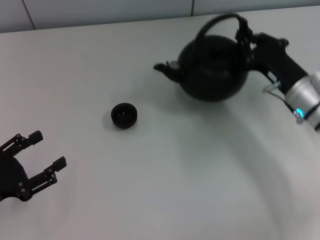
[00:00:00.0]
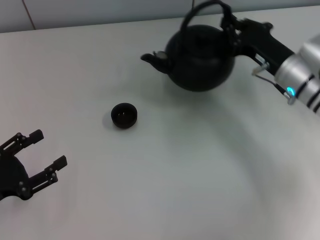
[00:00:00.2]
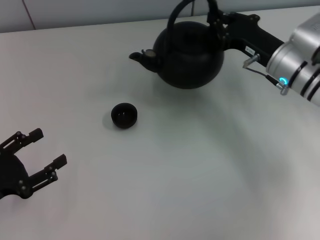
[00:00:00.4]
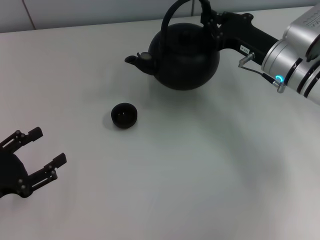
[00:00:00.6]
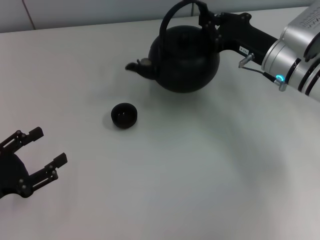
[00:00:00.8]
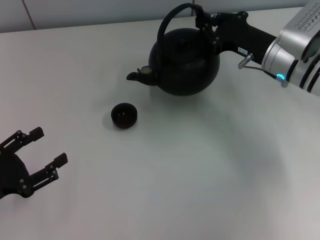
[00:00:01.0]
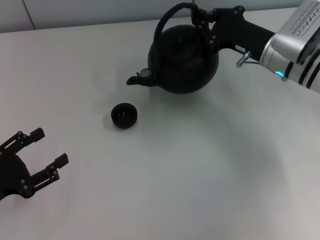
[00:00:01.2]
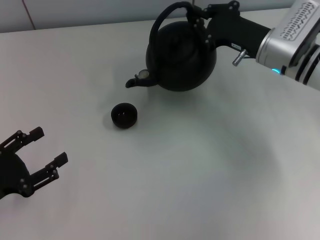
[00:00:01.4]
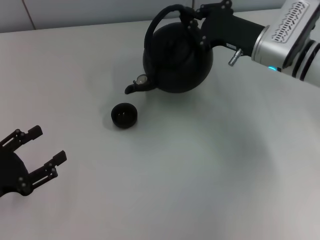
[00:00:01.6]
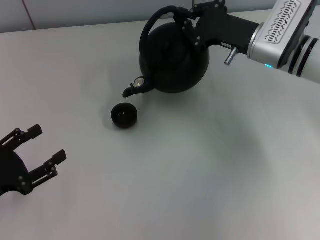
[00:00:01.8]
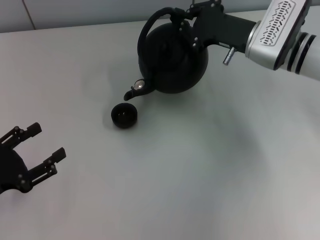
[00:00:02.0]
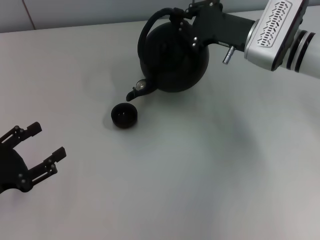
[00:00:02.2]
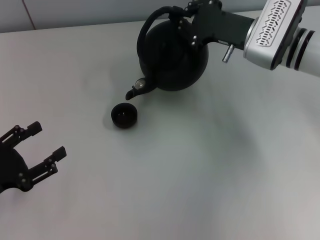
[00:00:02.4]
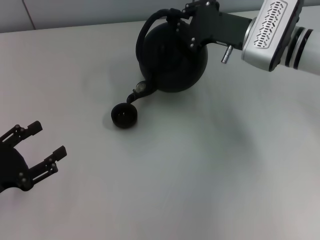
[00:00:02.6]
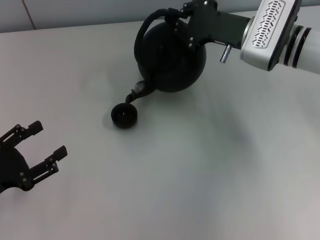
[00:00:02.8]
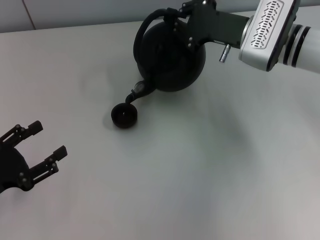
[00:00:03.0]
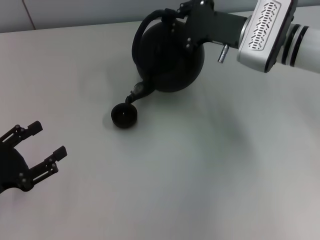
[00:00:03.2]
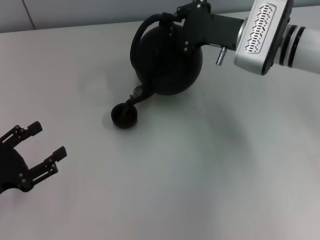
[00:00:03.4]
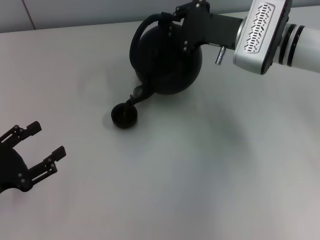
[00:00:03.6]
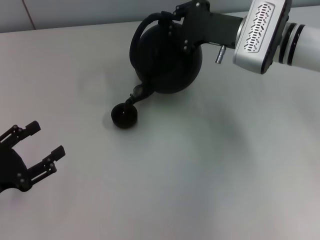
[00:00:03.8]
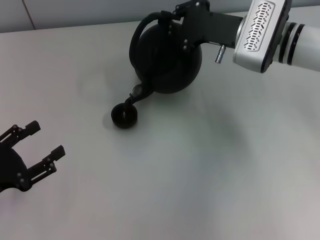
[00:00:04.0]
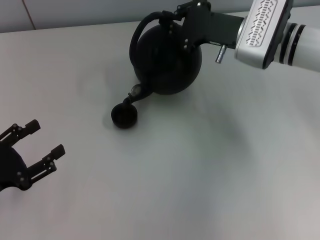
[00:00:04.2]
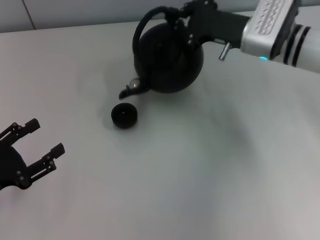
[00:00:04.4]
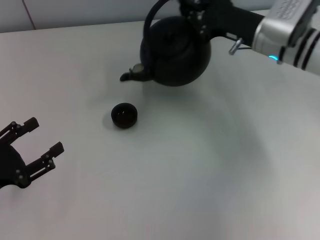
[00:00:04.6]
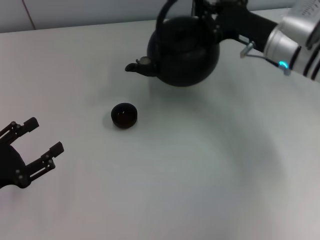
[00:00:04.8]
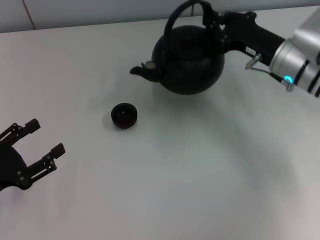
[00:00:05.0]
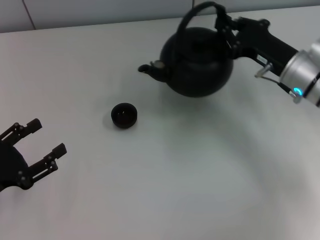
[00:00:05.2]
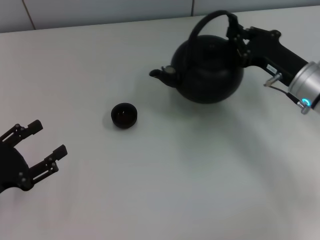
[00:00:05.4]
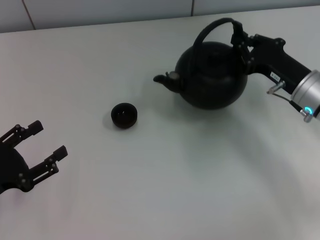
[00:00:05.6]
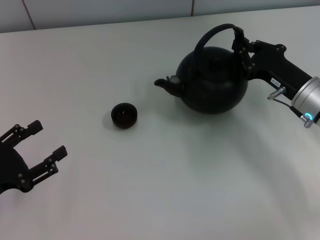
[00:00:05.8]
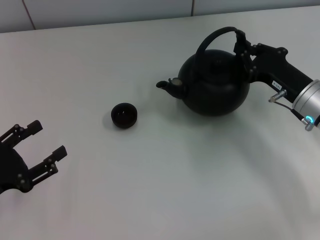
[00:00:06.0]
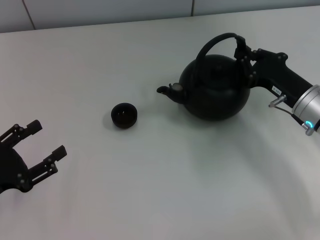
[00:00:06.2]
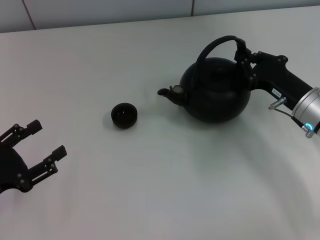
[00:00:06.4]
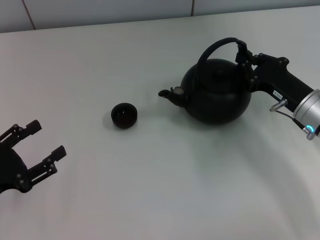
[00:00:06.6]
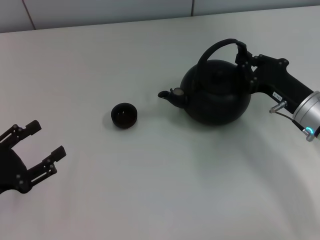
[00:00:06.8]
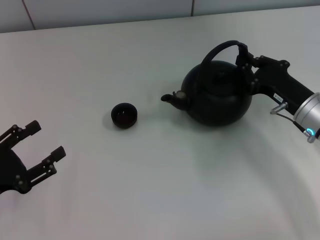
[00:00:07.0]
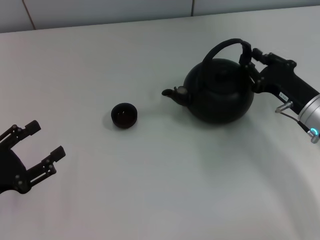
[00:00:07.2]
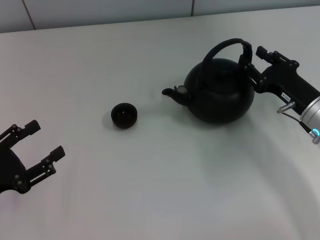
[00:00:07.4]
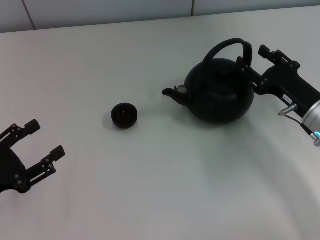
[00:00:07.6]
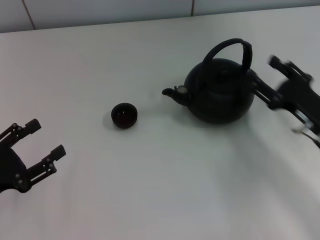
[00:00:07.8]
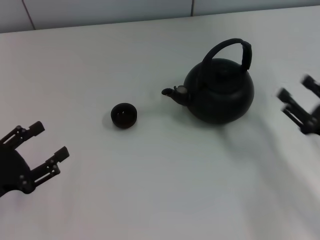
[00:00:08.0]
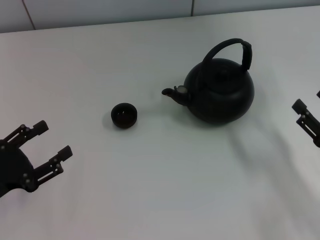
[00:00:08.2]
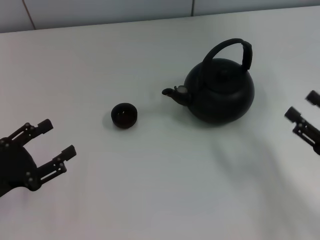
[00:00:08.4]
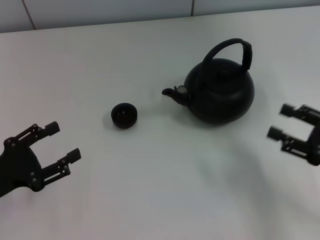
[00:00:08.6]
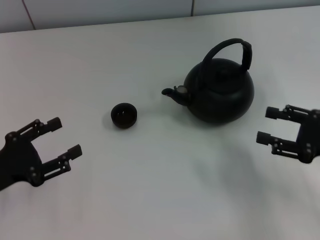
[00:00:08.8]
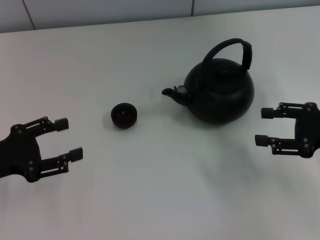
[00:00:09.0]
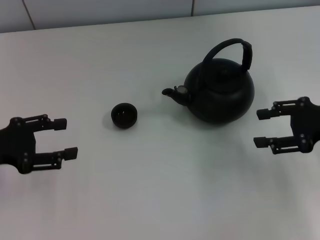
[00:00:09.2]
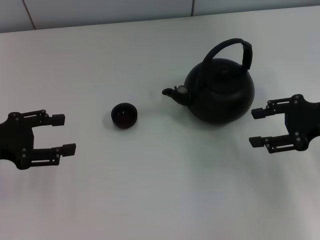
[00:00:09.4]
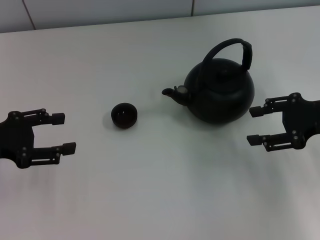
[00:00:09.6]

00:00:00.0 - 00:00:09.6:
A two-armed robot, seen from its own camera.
Task of the whole recording: Grasp the handle of the teapot with one hand and pour tea into the teacup.
Step, 00:00:04.8 - 00:00:07.6: Put down the teapot with the right gripper.
00:00:00.0 - 00:00:01.6: The right gripper travels forward and upward by approximately 10 cm.
00:00:01.6 - 00:00:03.2: The grippers make only small movements.
00:00:04.8 - 00:00:06.4: The right gripper goes approximately 10 cm backward and downward.
00:00:06.4 - 00:00:08.0: The right gripper moves backward and to the right, some 10 cm, and opens.
00:00:08.0 - 00:00:09.6: The right gripper goes about 15 cm upward and forward. The left gripper moves forward and upward, some 10 cm.

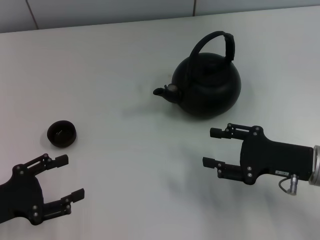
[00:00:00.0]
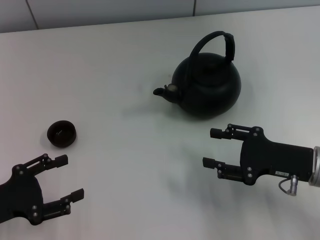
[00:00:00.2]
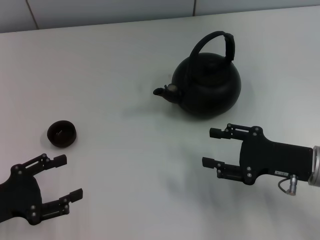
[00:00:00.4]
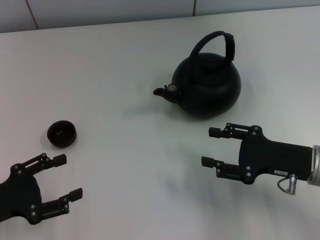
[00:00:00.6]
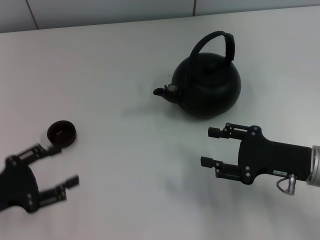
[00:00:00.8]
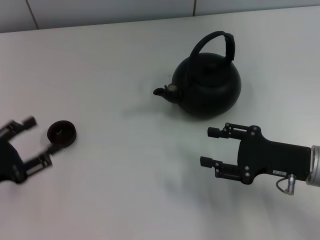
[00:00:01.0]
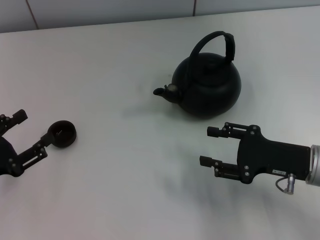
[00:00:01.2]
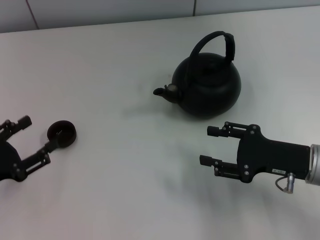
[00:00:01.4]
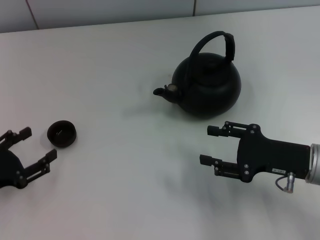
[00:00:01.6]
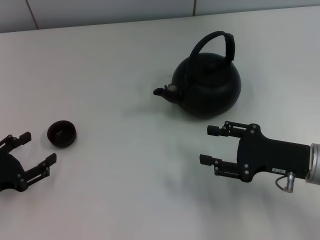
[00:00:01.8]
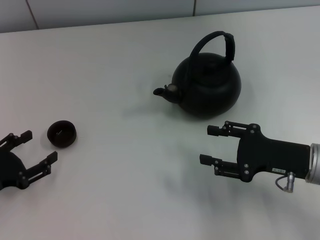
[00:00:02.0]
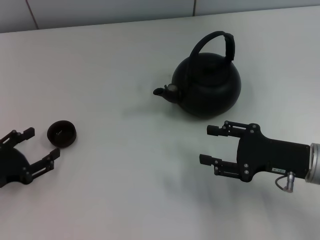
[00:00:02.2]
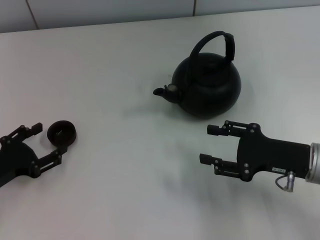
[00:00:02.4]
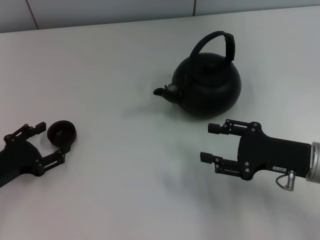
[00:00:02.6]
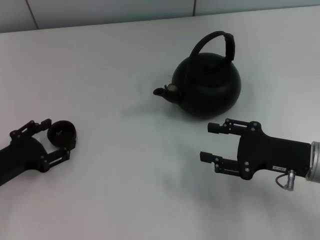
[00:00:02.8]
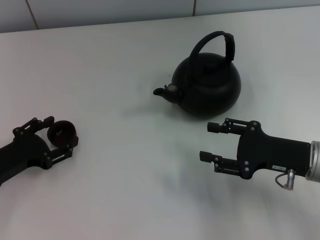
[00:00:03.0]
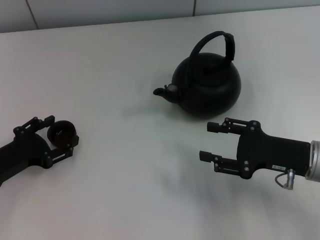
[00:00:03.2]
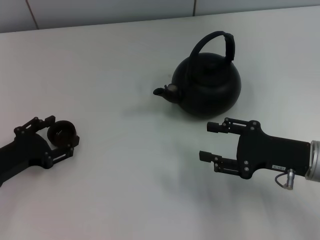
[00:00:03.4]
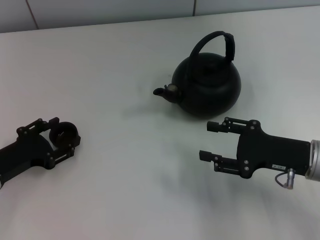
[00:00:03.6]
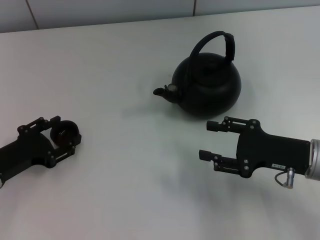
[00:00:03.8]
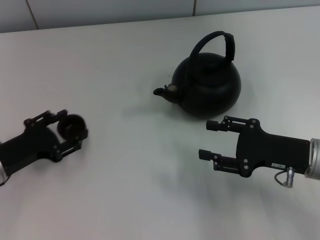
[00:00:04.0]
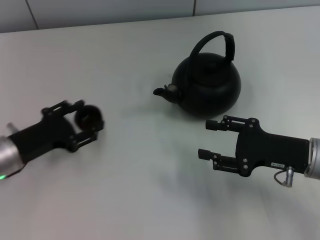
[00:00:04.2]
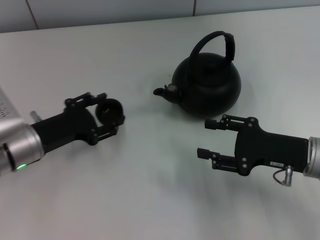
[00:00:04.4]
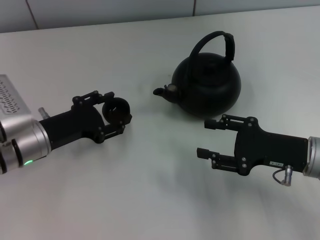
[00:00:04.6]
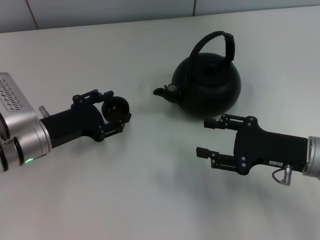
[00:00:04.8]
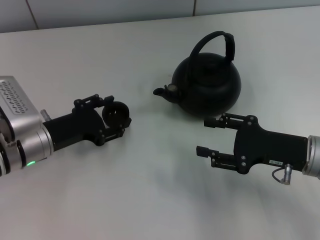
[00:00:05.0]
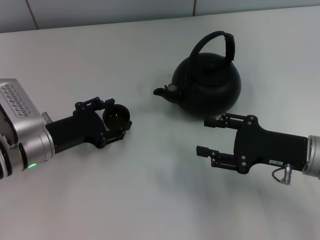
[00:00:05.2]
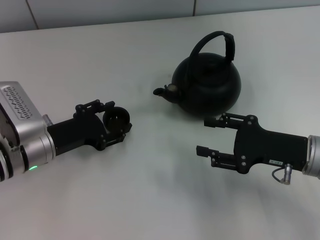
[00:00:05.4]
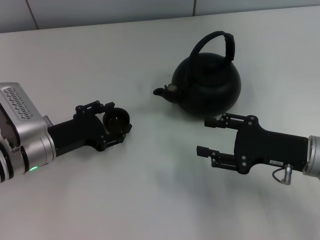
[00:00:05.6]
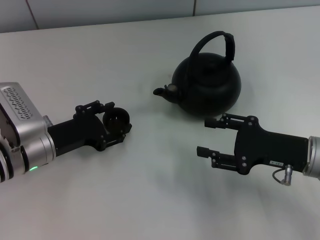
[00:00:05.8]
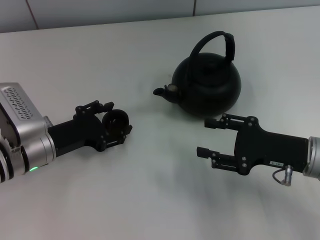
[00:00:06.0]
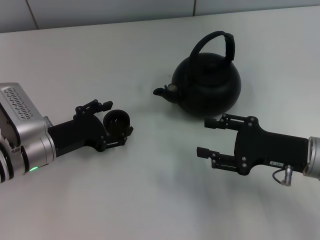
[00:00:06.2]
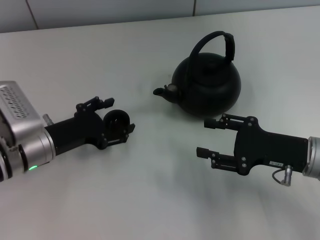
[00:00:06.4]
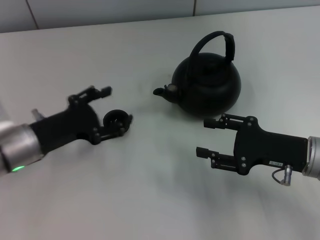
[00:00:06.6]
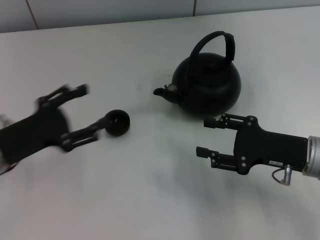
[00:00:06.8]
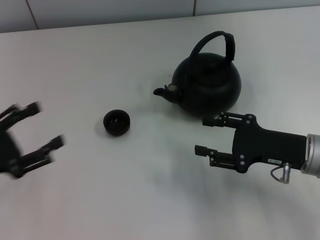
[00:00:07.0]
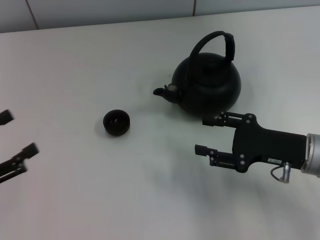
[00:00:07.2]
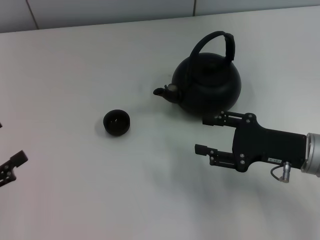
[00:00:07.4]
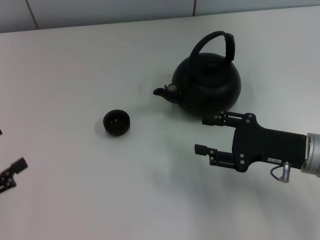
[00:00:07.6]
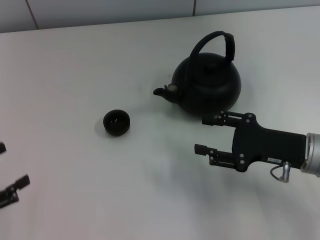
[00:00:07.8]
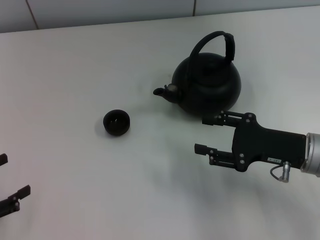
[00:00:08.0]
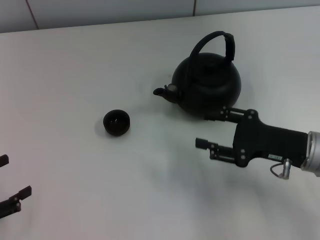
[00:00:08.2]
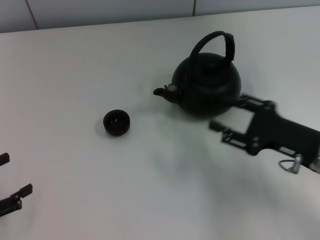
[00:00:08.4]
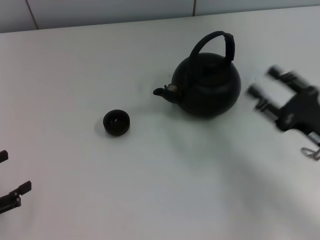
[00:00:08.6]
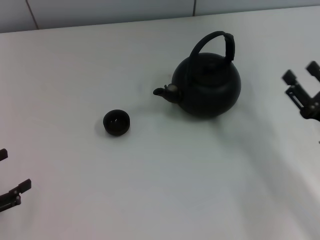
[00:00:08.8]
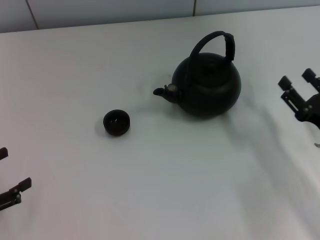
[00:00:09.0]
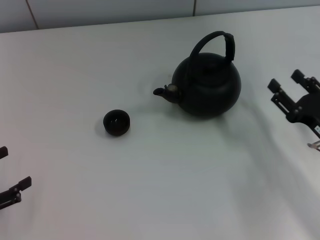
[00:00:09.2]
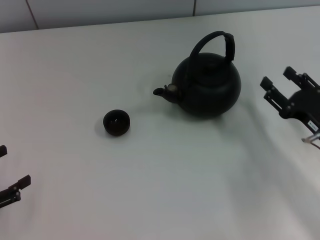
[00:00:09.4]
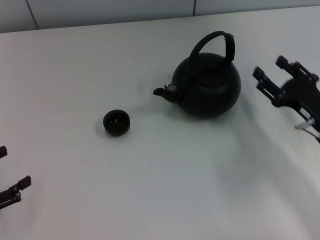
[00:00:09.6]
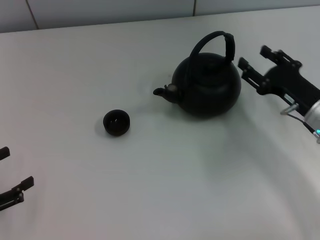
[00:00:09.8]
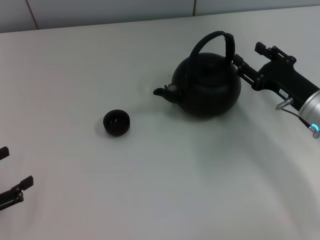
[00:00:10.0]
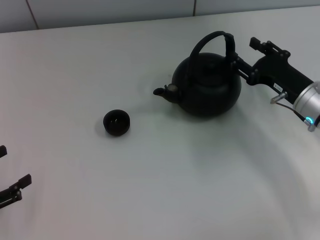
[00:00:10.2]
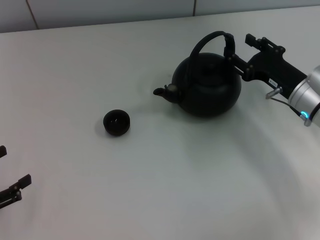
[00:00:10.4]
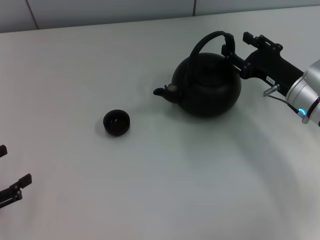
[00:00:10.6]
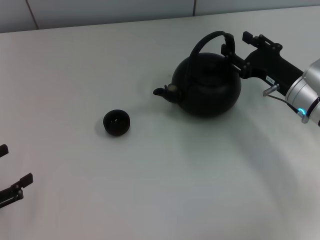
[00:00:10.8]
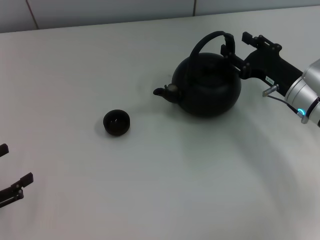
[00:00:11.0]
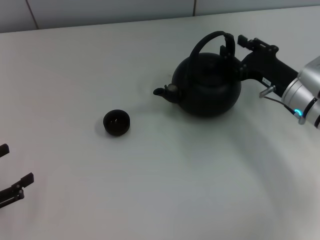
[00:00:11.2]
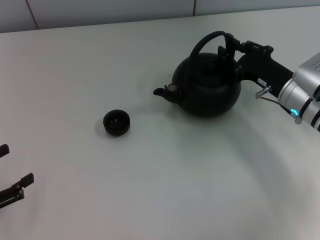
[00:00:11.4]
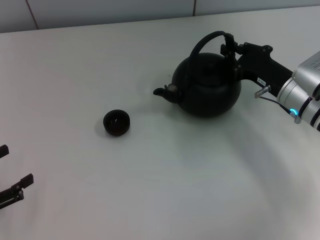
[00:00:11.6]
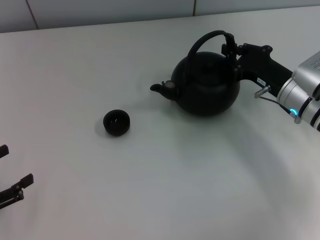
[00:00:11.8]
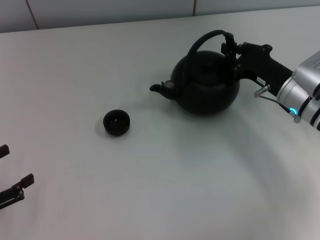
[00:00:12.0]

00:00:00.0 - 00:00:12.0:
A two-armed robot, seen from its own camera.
Task of the whole recording: Grasp the handle of the teapot with one hand and pour tea into the teacup.
Step, 00:00:00.0 - 00:00:04.0: Pick up the teacup with the left gripper.
Step, 00:00:04.2 - 00:00:06.4: Place the teacup in the center of view with the left gripper.
00:00:01.6 - 00:00:03.0: The left gripper shifts by about 5 cm.
00:00:03.0 - 00:00:04.4: The left gripper moves to the right, about 5 cm, and closes up.
00:00:04.4 - 00:00:06.0: There are only small adjustments of the grippers.
00:00:06.0 - 00:00:07.6: The left gripper moves to the left and backward, some 20 cm, and opens its fingers.
00:00:07.6 - 00:00:09.0: The right gripper moves some 5 cm.
00:00:09.0 - 00:00:10.4: The right gripper heads forward, covering approximately 10 cm.
00:00:10.4 - 00:00:12.0: The right gripper closes its fingers.
